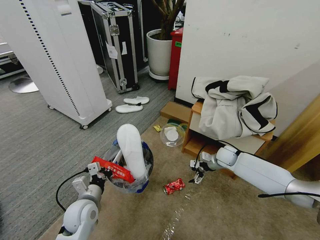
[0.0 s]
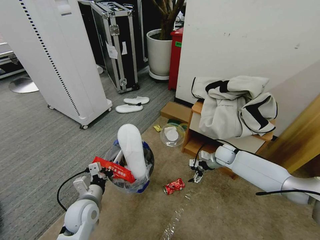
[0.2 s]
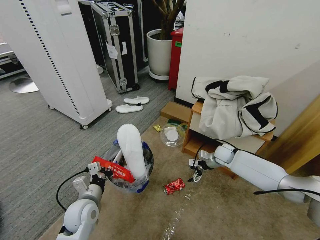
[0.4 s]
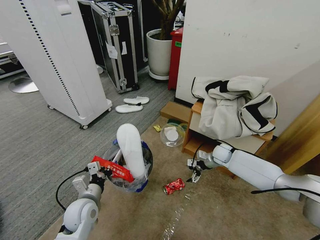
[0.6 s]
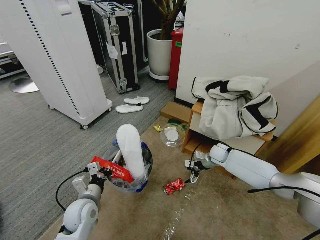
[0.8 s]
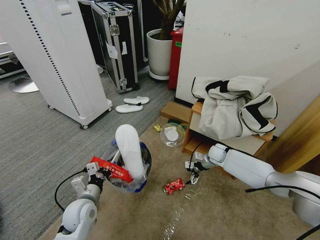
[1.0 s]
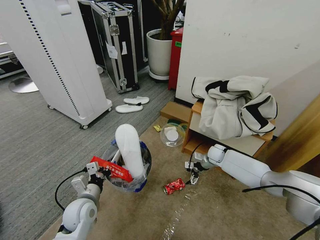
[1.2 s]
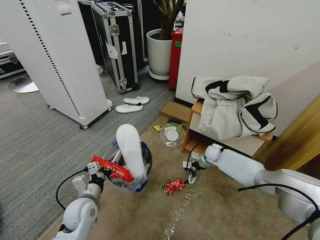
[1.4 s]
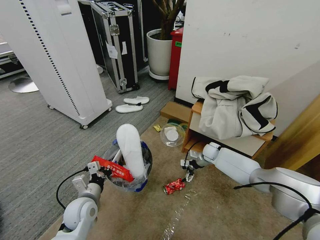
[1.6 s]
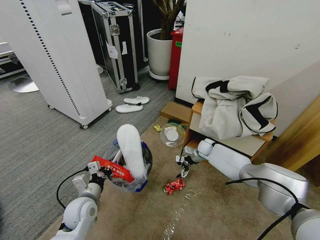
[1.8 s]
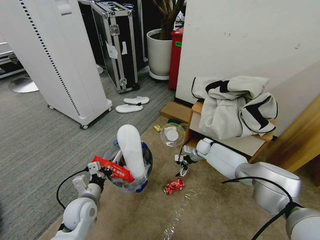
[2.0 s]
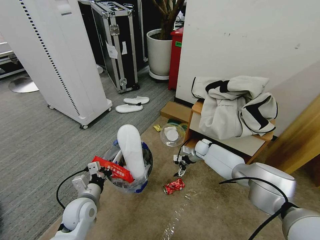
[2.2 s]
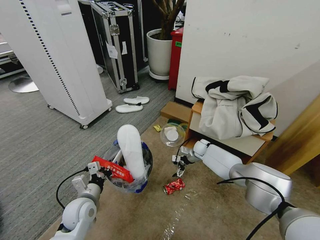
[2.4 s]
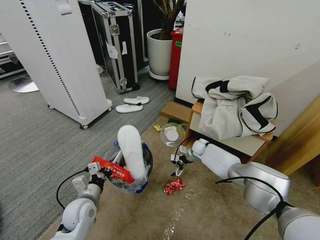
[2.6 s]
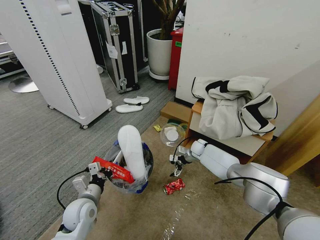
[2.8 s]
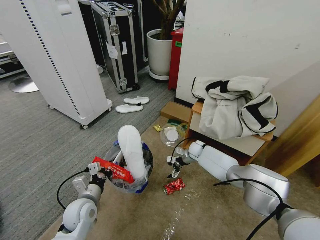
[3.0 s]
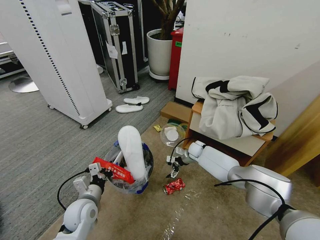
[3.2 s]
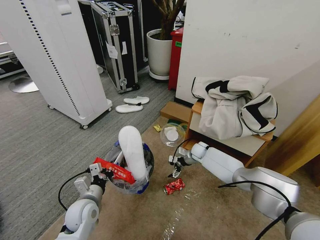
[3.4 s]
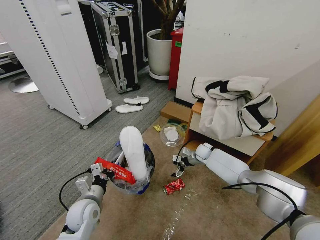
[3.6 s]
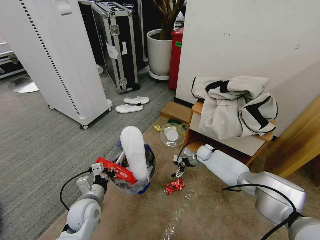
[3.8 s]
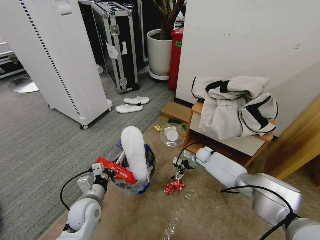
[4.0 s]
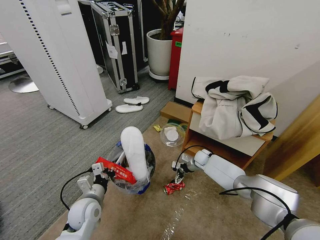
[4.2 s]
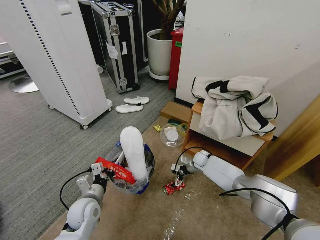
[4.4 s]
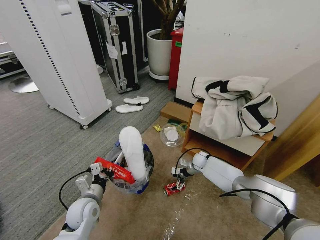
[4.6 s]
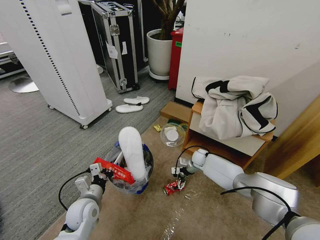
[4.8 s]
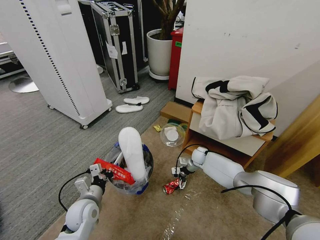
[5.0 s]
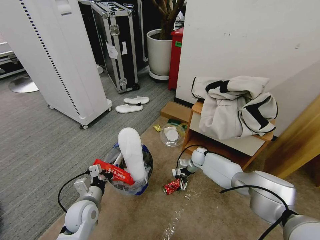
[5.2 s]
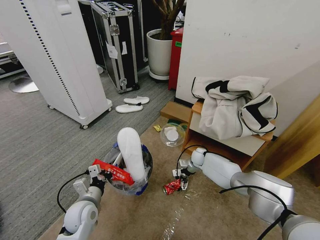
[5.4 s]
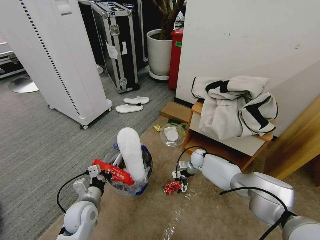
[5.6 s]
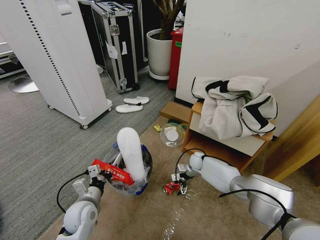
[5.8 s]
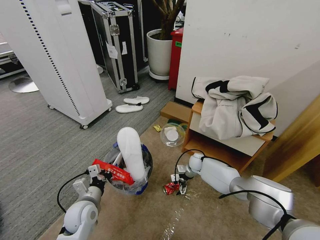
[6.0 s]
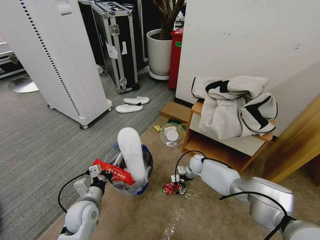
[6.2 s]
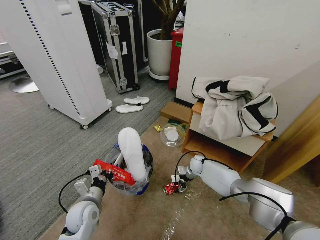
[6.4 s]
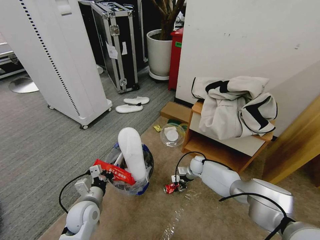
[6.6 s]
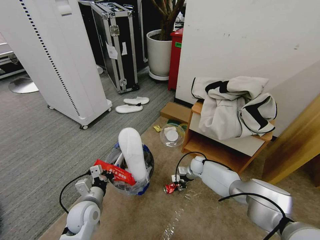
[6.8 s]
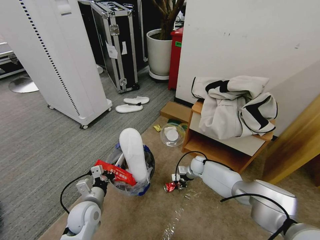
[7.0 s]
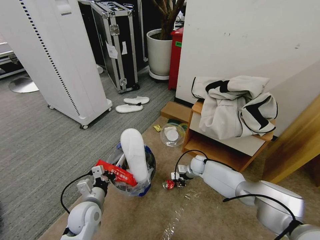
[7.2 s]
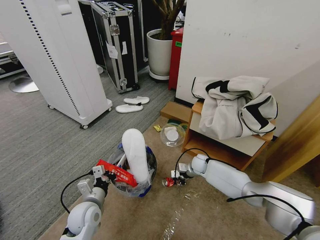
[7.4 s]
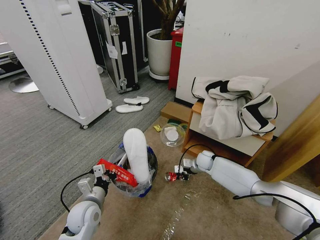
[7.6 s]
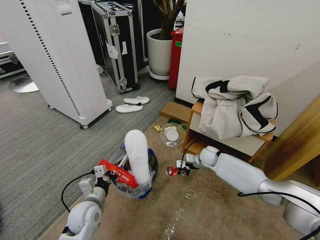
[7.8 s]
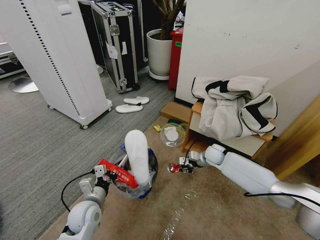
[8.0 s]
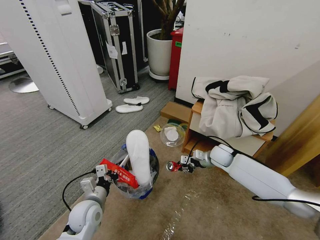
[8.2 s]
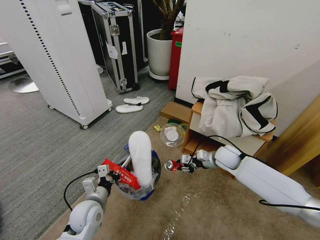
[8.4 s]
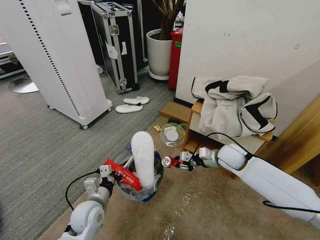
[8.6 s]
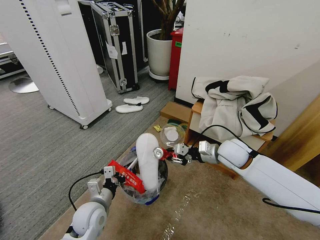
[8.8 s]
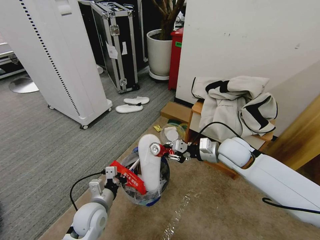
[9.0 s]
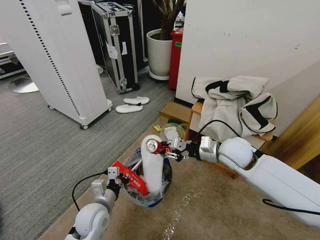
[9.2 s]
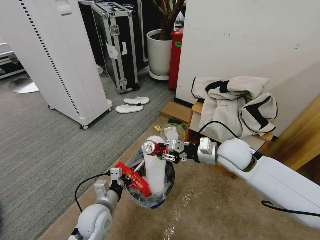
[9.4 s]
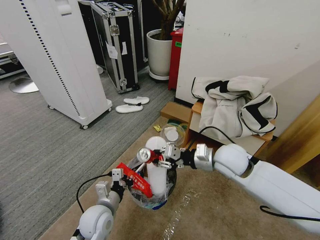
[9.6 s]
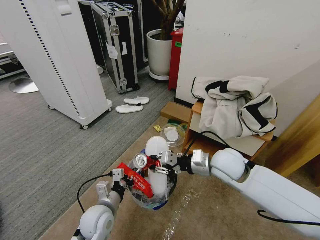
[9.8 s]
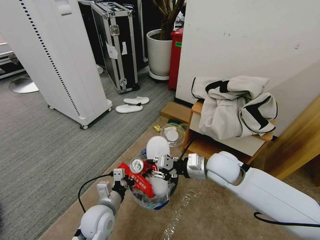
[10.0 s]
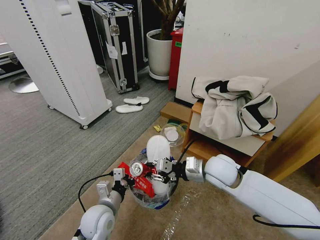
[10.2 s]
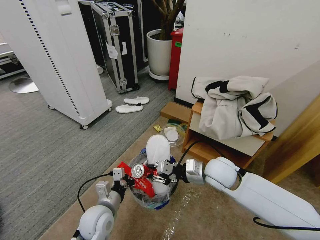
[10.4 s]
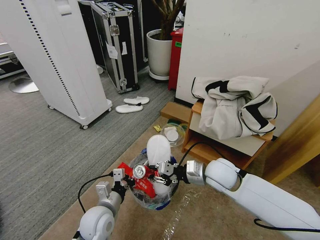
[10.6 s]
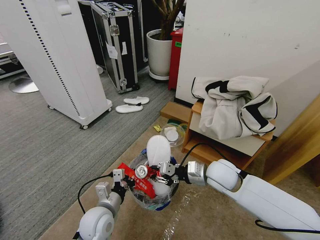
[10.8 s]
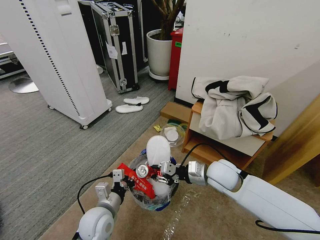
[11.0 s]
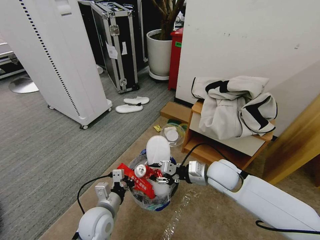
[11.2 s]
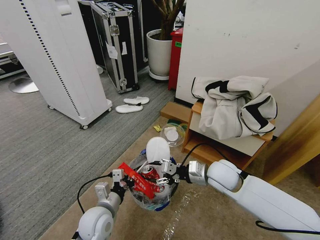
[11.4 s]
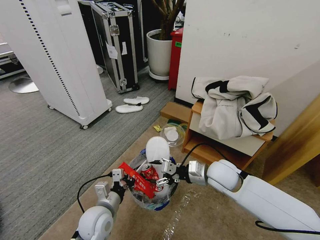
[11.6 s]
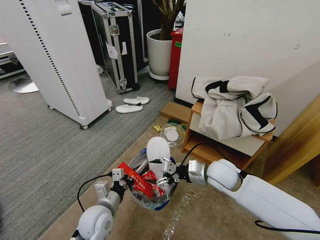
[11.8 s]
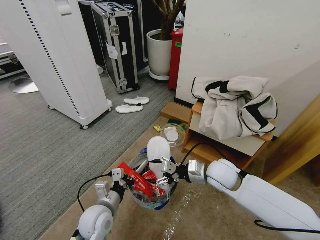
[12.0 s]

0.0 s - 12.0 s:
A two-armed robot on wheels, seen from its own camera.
Task of the whole recording: Pick up the trash bin and place the garbage on the floor into it.
0.0 s - 1.6 s: The right gripper is displaced forward by about 5 cm.
1.6 s - 3.0 s: The right gripper shifts some 5 cm to the left.
3.0 s - 4.4 s: The right gripper shifts by approximately 5 cm.
6.0 s - 7.6 s: The right gripper closes its fingers.
7.6 s - 9.0 s: The right gripper heads upward and backward, covering about 25 cm.
9.0 s - 10.4 s: The right gripper goes about 5 cm backward and to the left.
10.4 s - 12.0 s: The right gripper opens its fingers.

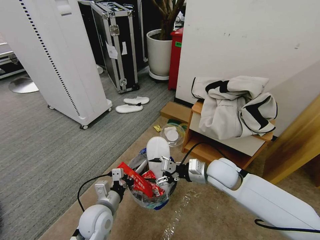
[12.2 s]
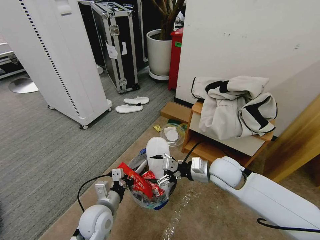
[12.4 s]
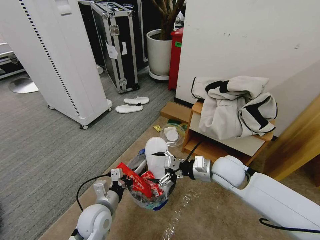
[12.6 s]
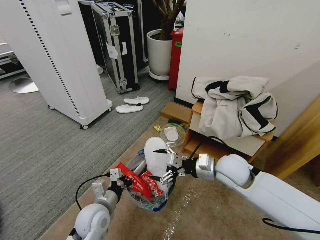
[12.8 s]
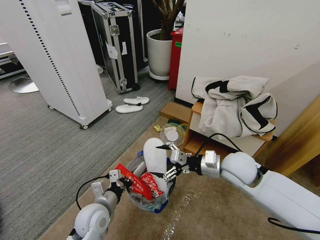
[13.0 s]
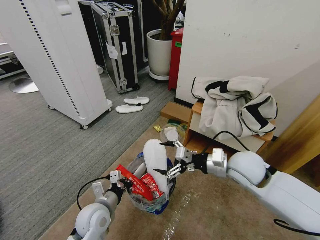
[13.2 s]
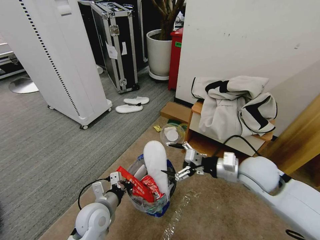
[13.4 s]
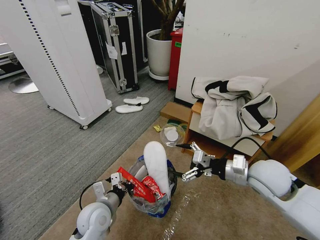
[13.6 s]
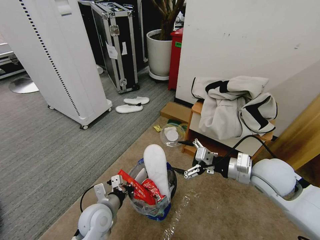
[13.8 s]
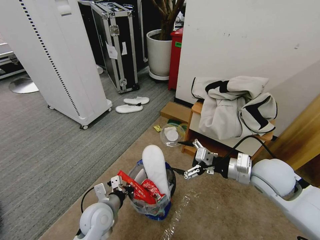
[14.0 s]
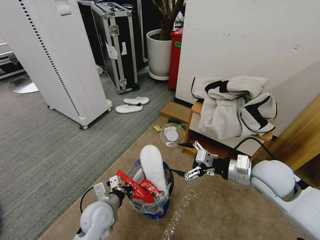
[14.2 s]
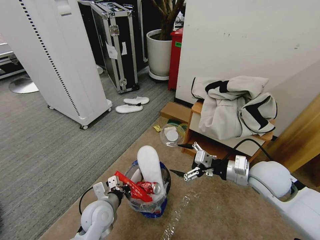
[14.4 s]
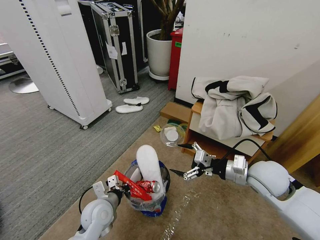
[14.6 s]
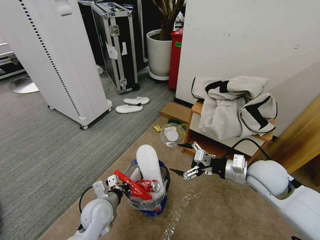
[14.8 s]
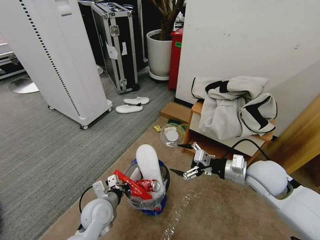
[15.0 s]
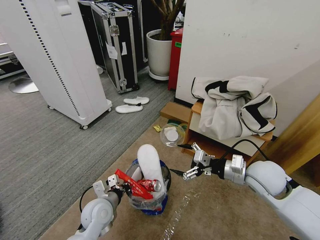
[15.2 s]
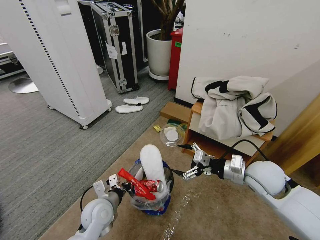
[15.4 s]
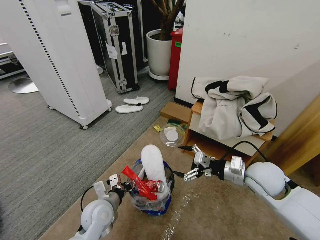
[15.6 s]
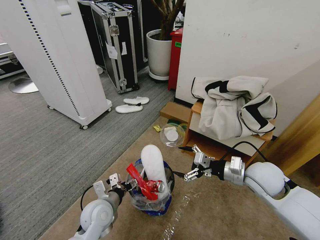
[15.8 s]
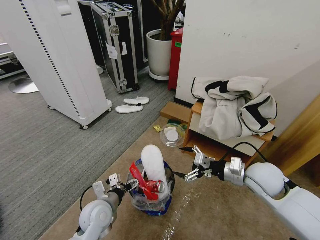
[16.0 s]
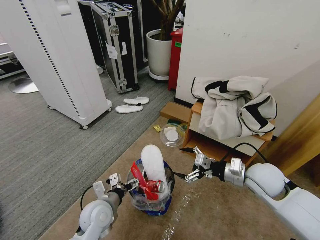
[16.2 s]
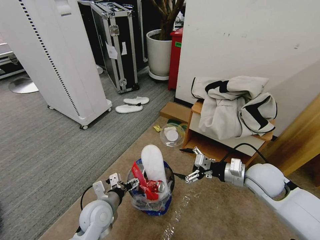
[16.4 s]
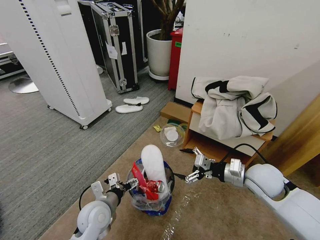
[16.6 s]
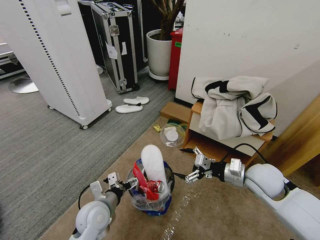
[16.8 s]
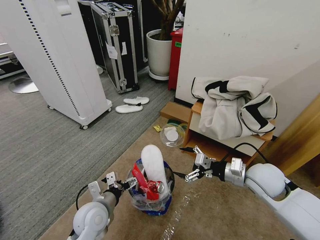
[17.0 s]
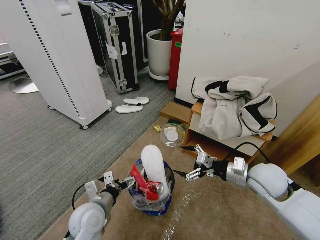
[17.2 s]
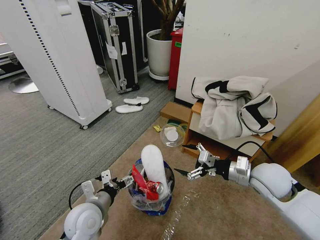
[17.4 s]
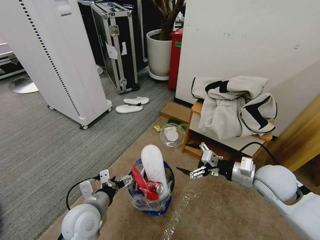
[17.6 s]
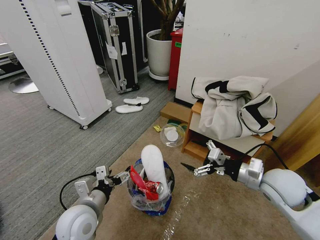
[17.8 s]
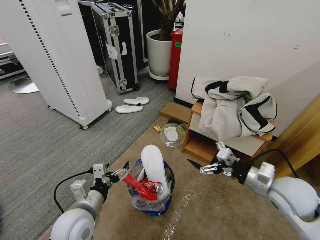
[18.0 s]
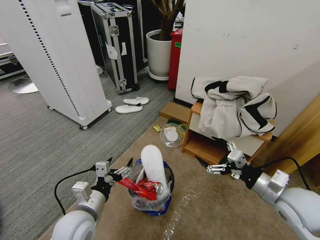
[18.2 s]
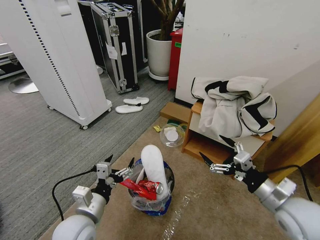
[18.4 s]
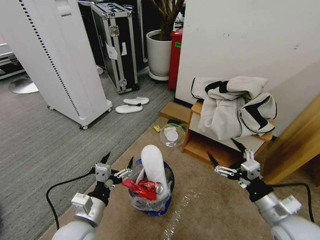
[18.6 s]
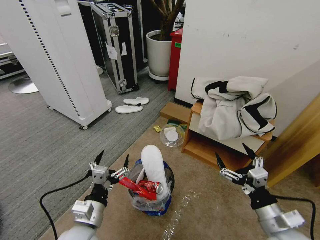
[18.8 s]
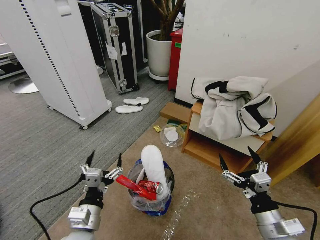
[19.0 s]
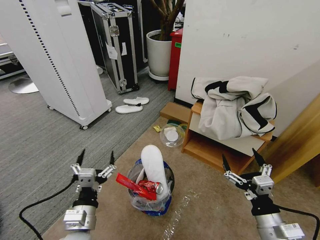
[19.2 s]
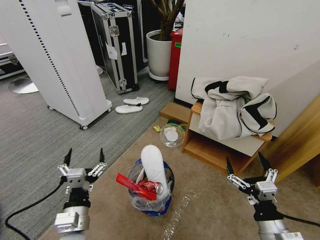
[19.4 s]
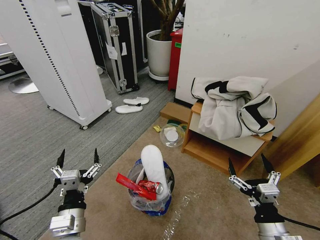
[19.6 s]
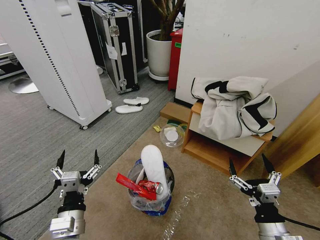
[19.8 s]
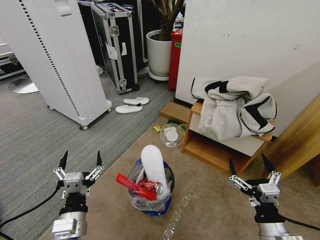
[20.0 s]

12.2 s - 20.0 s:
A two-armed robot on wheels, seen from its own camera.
Task of the whole recording: Pick up the trash bin and place the garbage on the floor into it.
12.2 s - 13.8 s: The right gripper goes some 15 cm to the right, upward and backward.
13.8 s - 15.4 s: The left gripper opens its fingers.
15.4 s - 16.8 s: The left gripper opens.
16.8 s - 18.4 s: The left gripper shifts about 10 cm backward and upward. Meanwhile the right gripper is displaced backward by some 10 cm.
18.4 s - 20.0 s: The left gripper travels backward by roughly 5 cm, while the right gripper travels backward and downward by approximately 10 cm.
